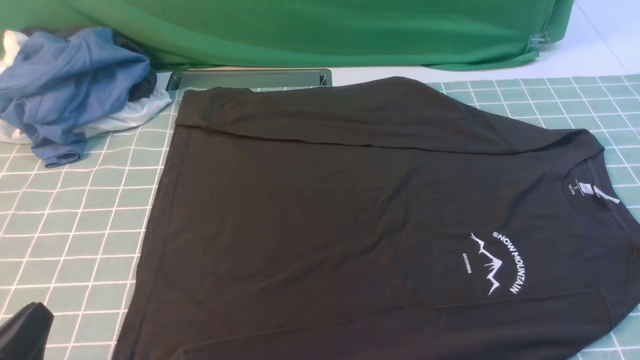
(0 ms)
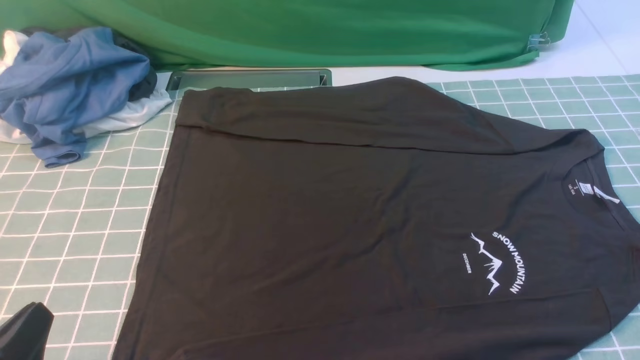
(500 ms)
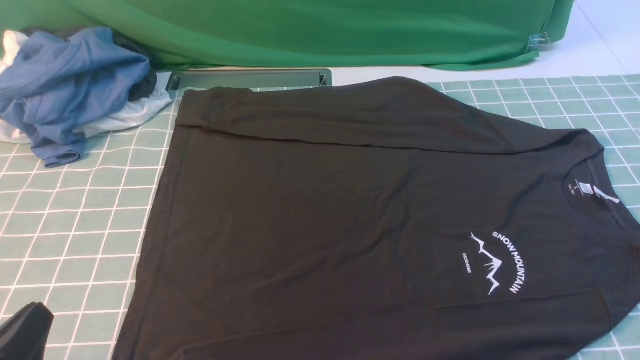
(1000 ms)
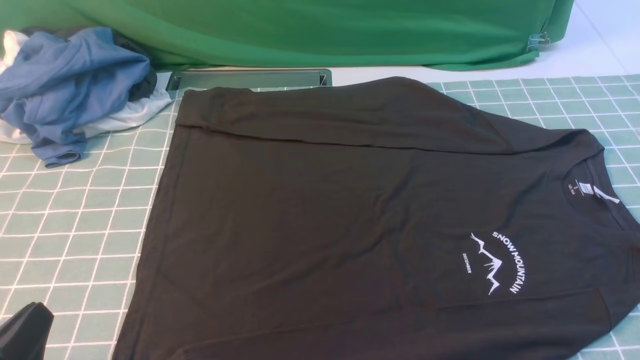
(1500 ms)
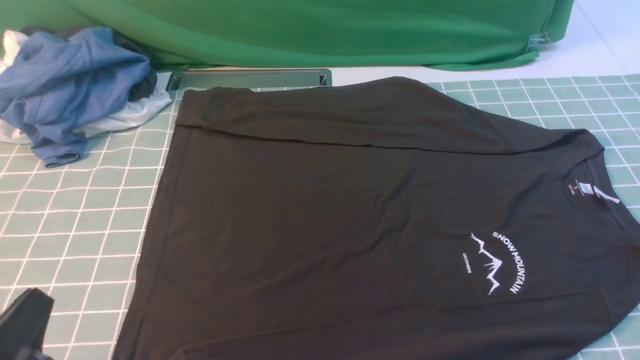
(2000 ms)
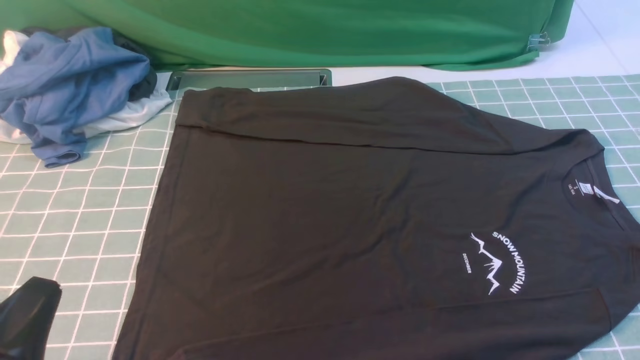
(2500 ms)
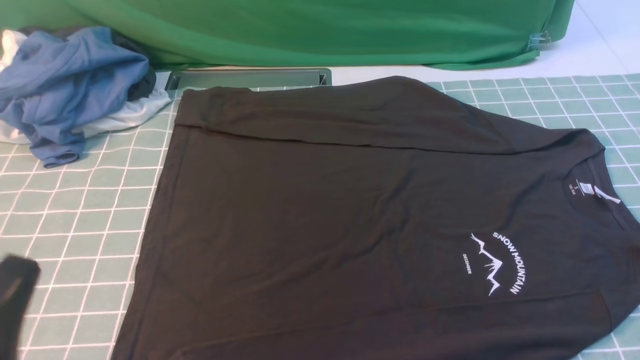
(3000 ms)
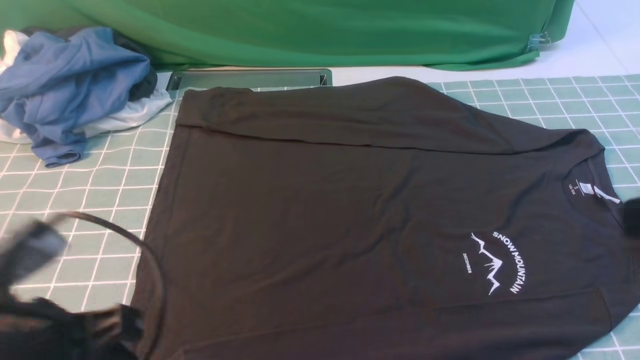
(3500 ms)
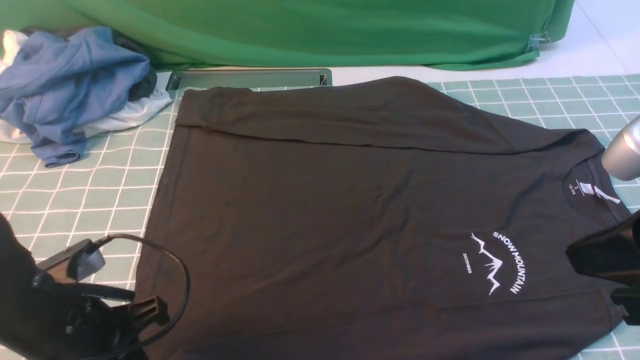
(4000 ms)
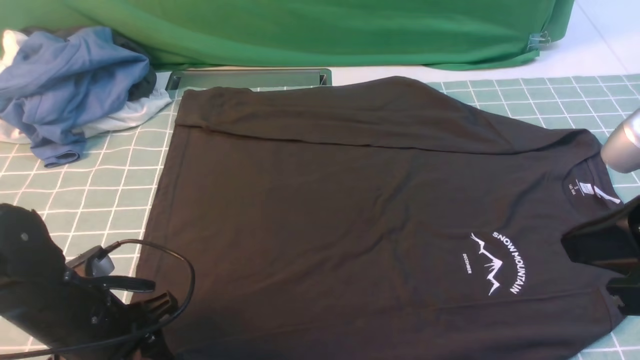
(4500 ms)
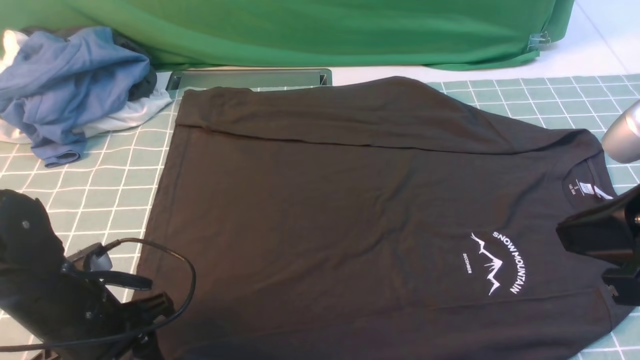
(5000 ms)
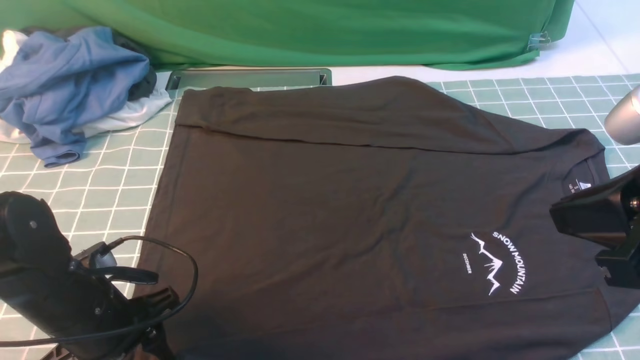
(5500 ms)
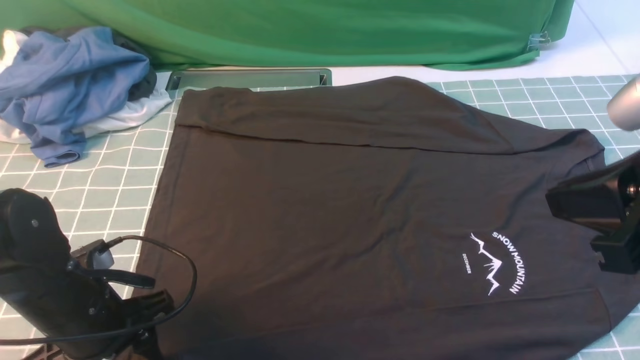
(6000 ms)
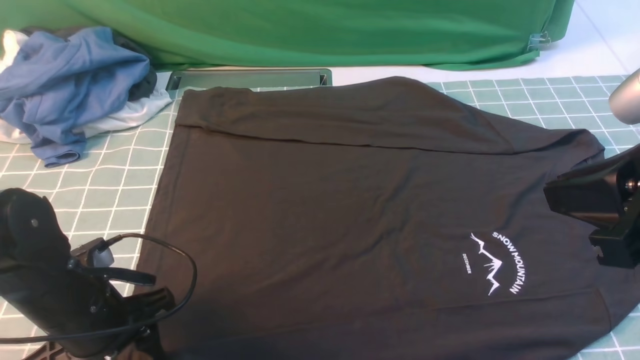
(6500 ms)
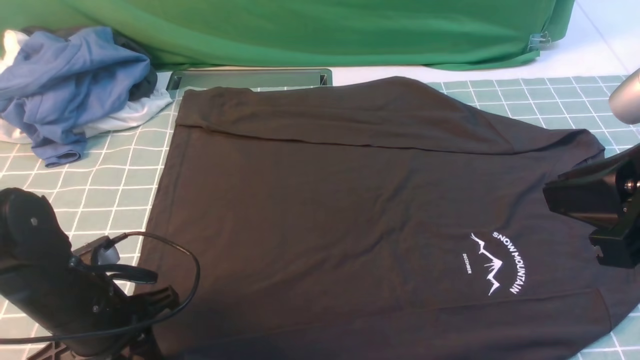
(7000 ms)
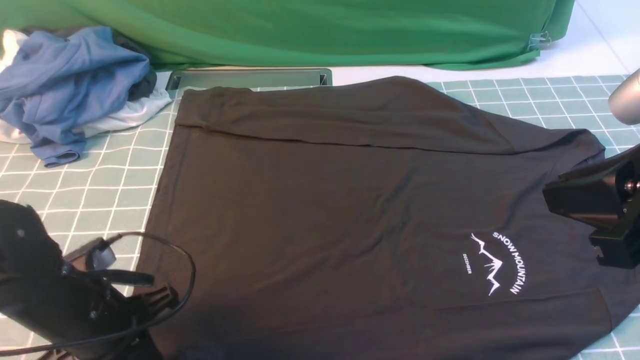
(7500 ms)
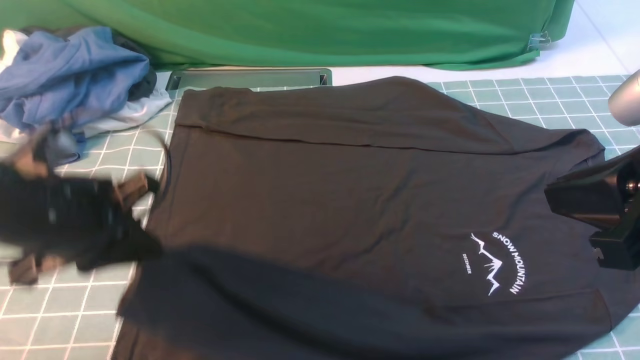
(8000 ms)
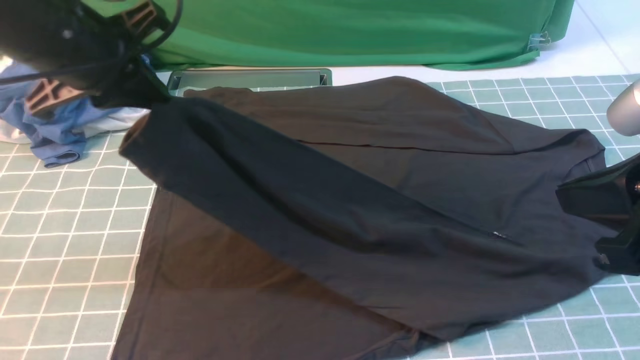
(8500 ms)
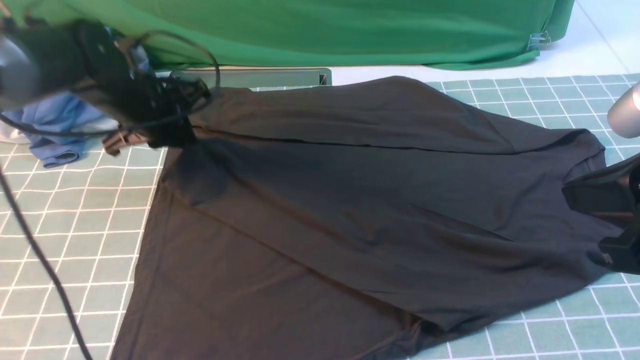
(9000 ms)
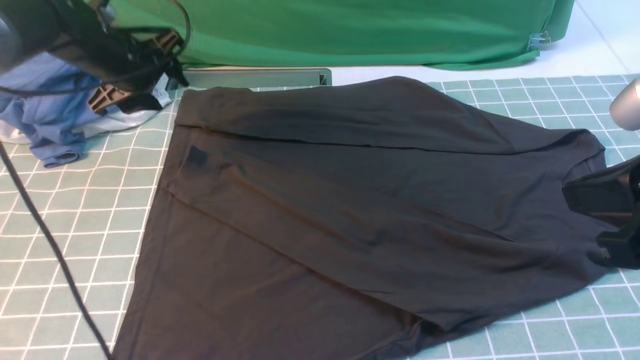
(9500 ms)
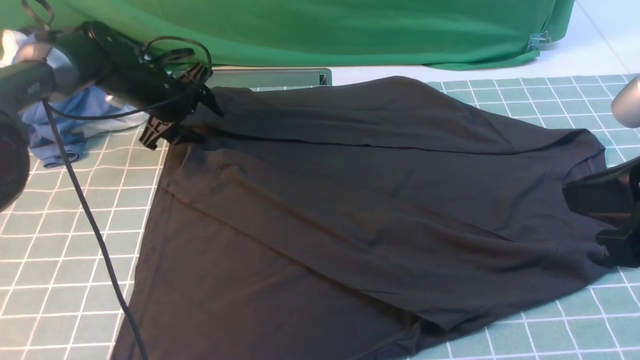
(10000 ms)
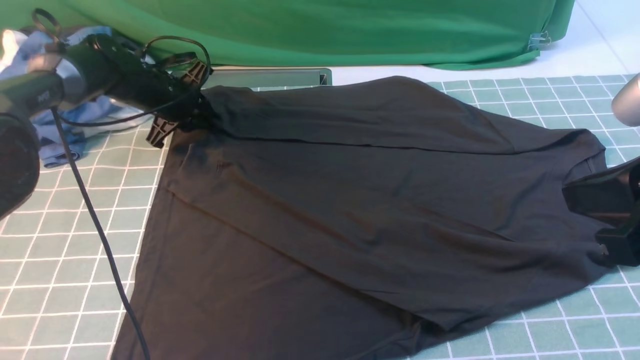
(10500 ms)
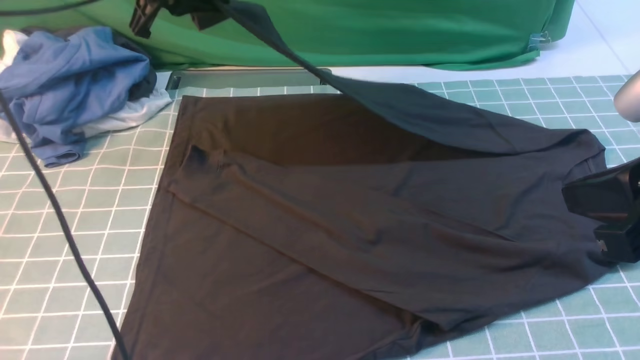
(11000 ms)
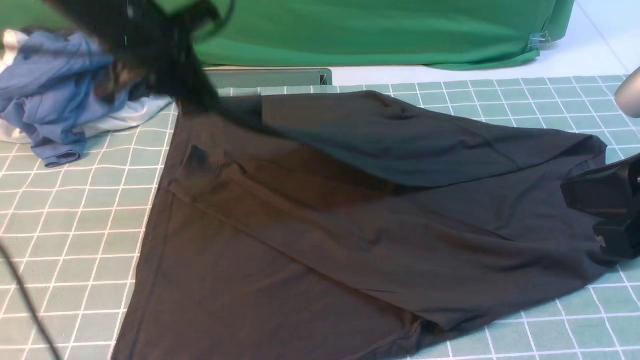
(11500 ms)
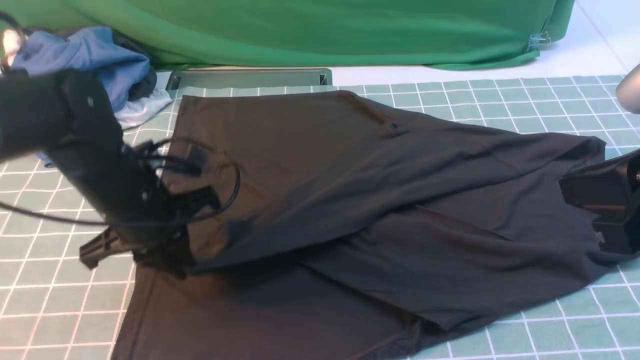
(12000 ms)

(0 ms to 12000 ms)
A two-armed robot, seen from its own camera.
Step, 0 ms - 7500 ms: use the left arm to clamp the cuff closest to it.
Step, 8000 ms - 9000 ms: use the left arm to drag and place the cuff at the centered position on the left edge of the fabric.
Step, 9500 ms - 10500 ms: use the left arm to clamp the cuff farthest from it.
2000 ms - 4000 ms: The right gripper goes about 20 cm upward, forward and to the left, and closes. Meanwhile the left gripper goes about 10 cm forward.
4000 ms - 6000 ms: The left gripper opens its fingers.
6000 ms - 8000 ms: The left gripper shifts roughly 15 cm upward, and closes its fingers.
8000 ms - 10000 ms: The left gripper is displaced forward and downward by roughly 30 cm, and opens.
10000 ms - 12000 ms: The left gripper is displaced backward by some 20 cm, and closes up.

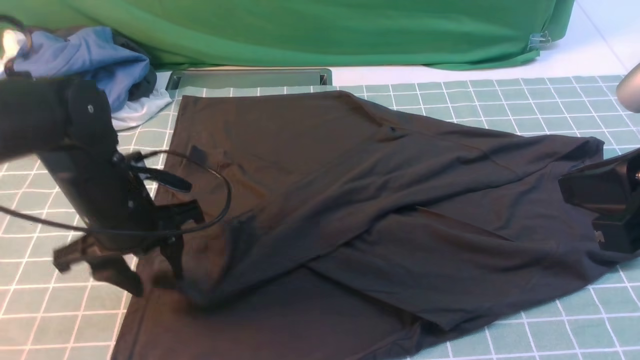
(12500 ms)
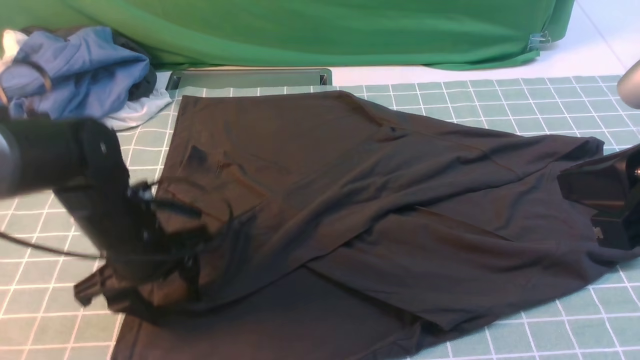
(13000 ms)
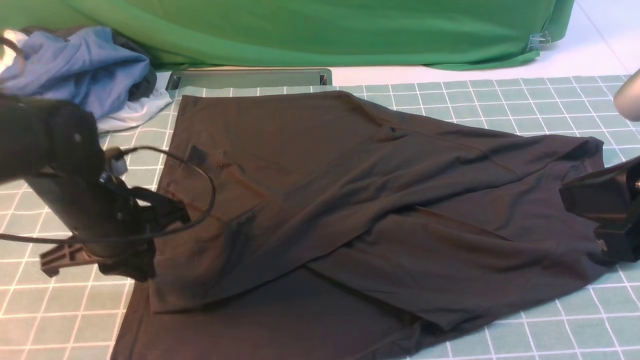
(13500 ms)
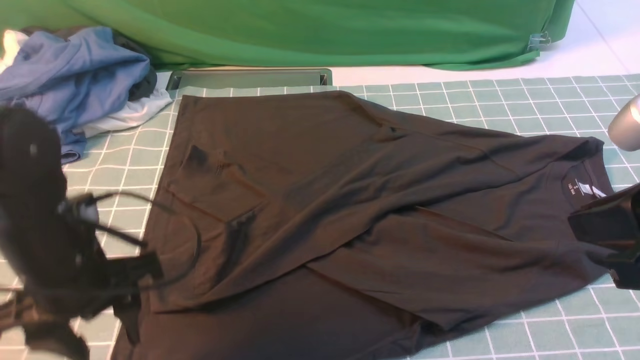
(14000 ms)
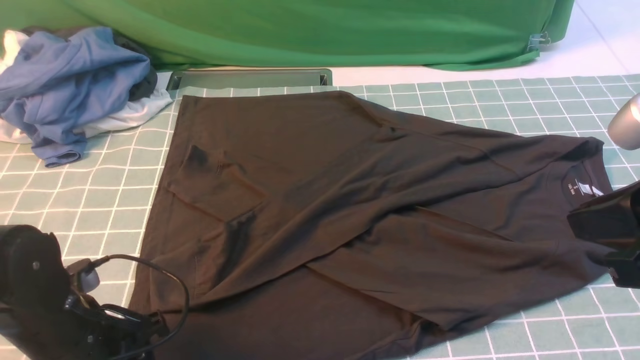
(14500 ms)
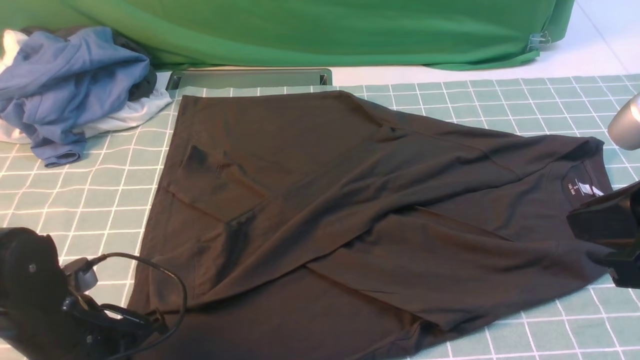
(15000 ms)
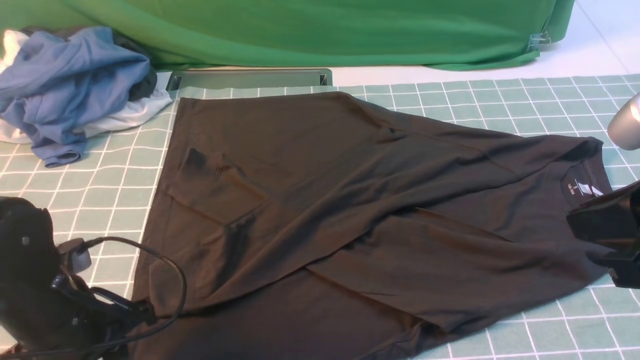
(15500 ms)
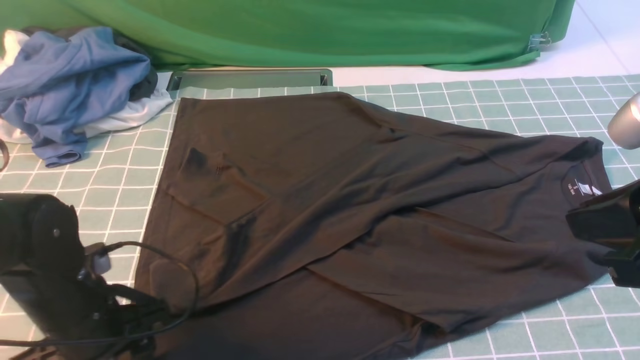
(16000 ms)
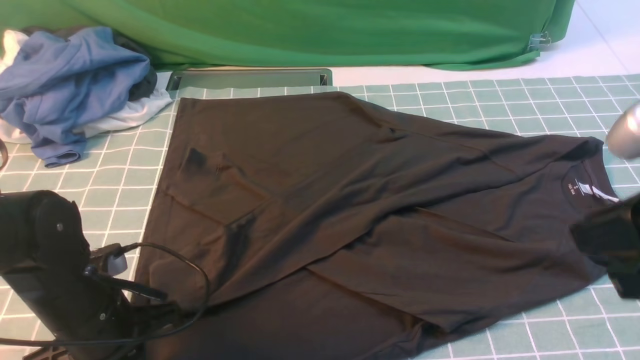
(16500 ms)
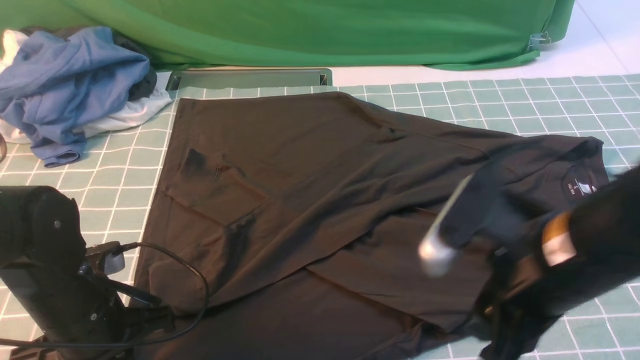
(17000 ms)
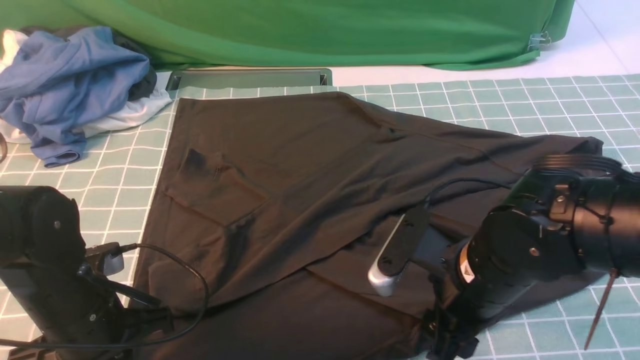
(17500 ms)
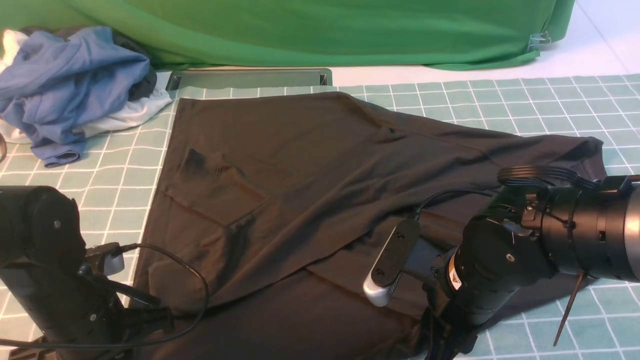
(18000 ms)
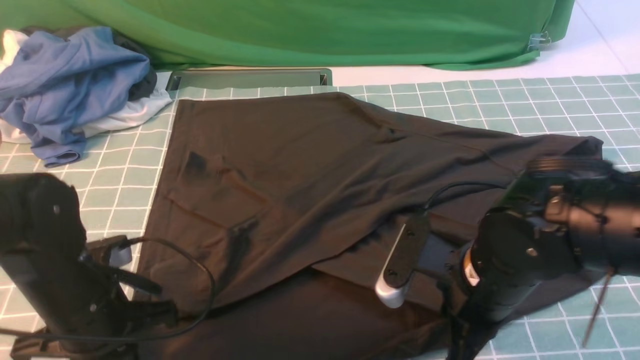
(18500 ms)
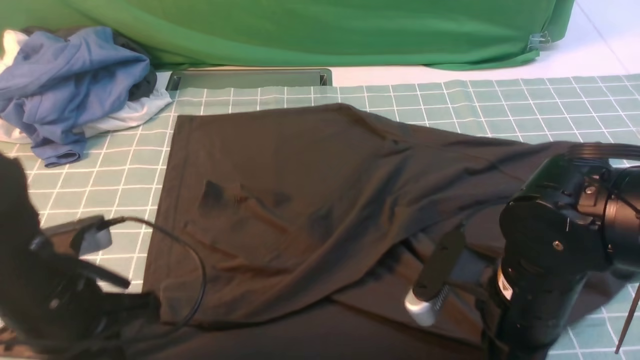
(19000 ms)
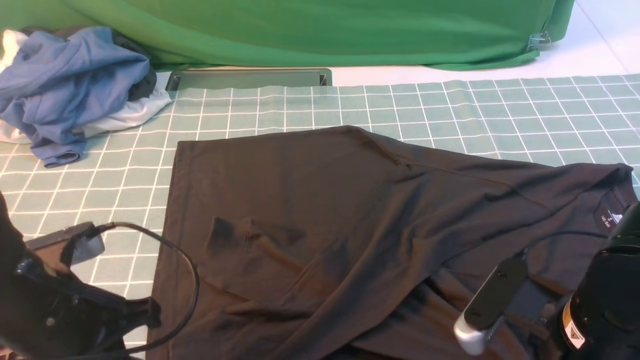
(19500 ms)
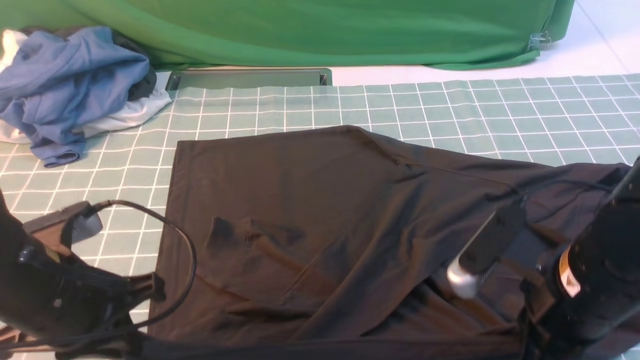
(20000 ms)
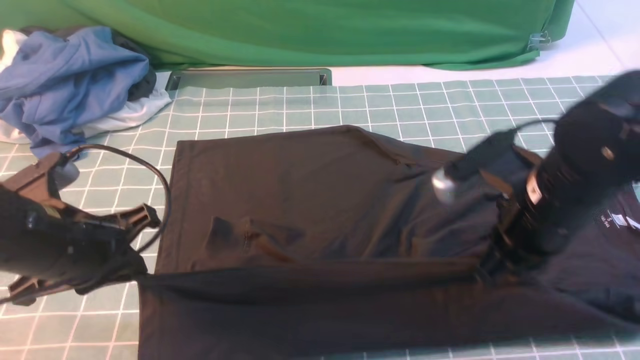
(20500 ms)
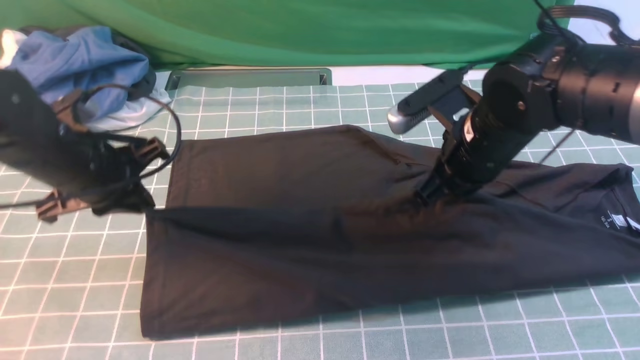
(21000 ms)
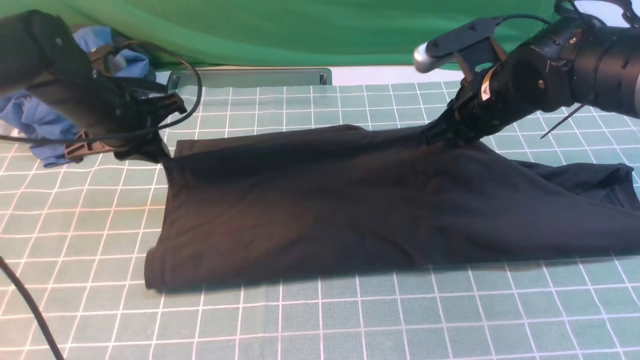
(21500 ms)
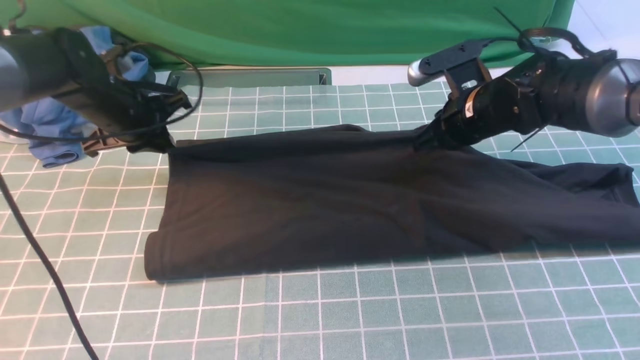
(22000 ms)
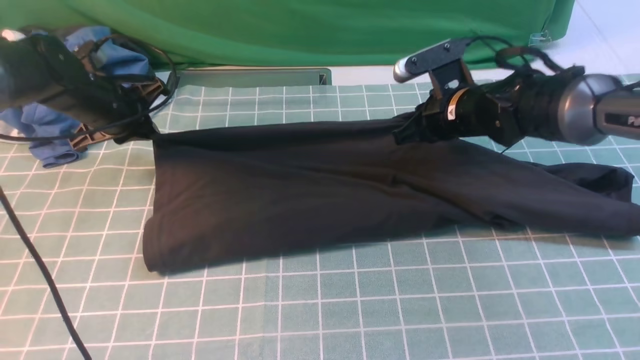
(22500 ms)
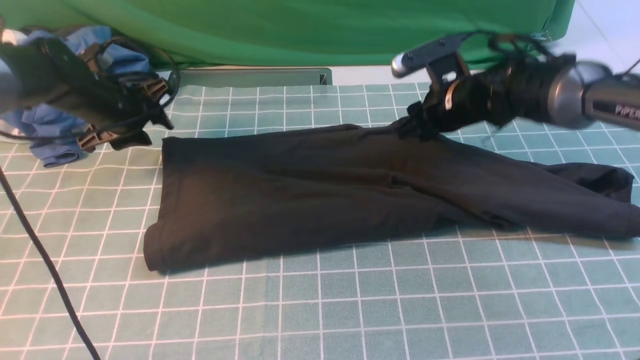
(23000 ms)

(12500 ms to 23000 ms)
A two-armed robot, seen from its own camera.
Step, 14000 ms - 18500 ms: use both arms simultaneously to clamp the lower edge of the clothing fabric.
12500 ms - 14500 ms: The left gripper moves backward and downward, approximately 15 cm, and closes, then reopens.
14500 ms - 16500 ms: The left gripper closes its fingers.
16500 ms - 19000 ms: The right gripper moves downward and to the left, some 15 cm, and opens, then closes again; the left gripper shifts approximately 5 cm upward.
19000 ms - 21000 ms: Both grippers move forward, roughly 15 cm.
21000 ms - 23000 ms: Both grippers travel together forward, approximately 15 cm. The right gripper opens up. Meanwhile the left gripper opens its fingers.
